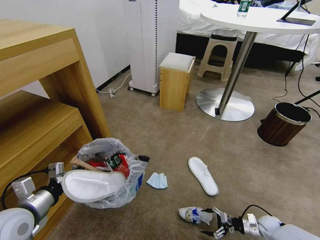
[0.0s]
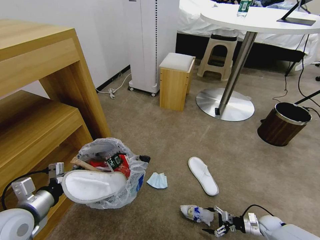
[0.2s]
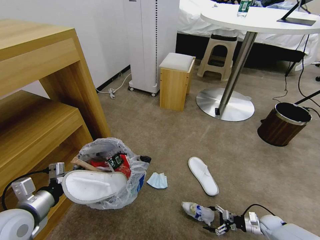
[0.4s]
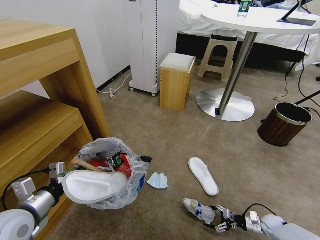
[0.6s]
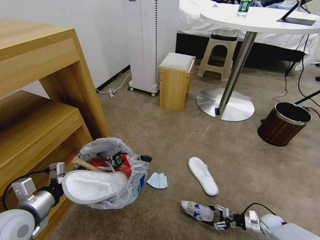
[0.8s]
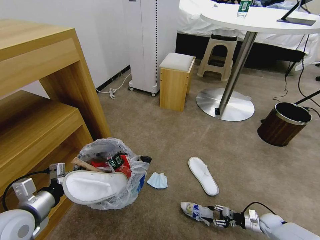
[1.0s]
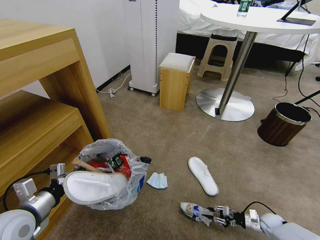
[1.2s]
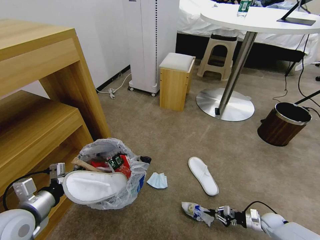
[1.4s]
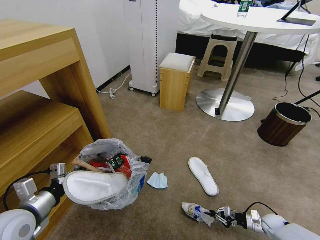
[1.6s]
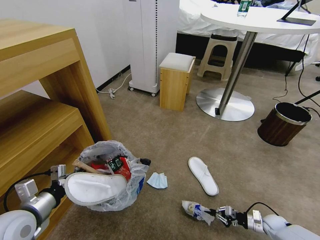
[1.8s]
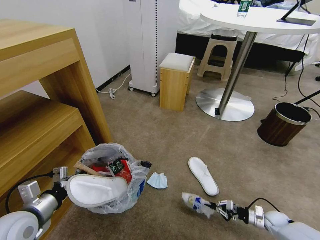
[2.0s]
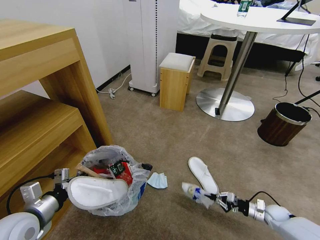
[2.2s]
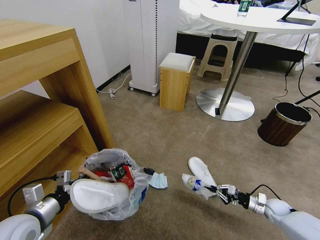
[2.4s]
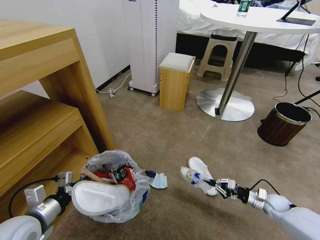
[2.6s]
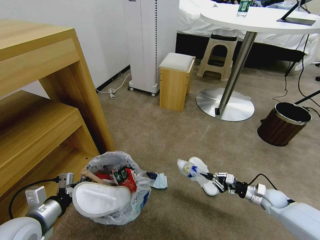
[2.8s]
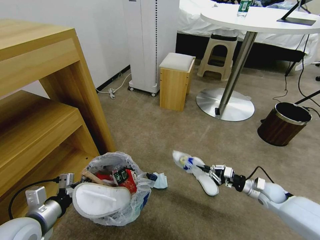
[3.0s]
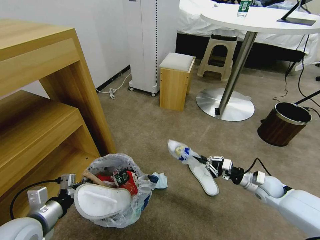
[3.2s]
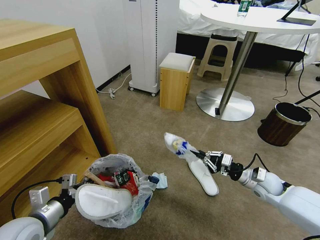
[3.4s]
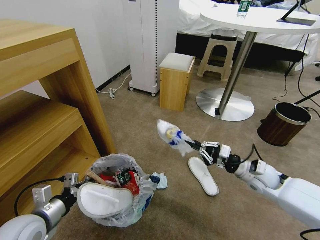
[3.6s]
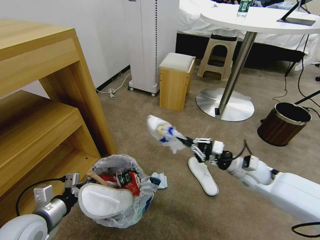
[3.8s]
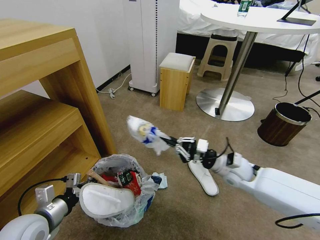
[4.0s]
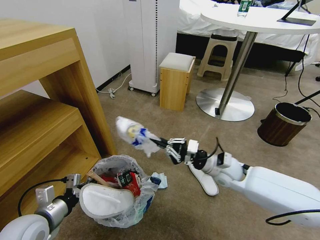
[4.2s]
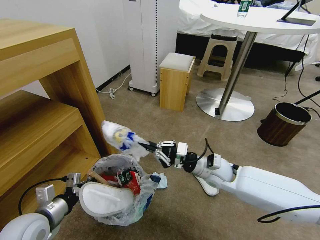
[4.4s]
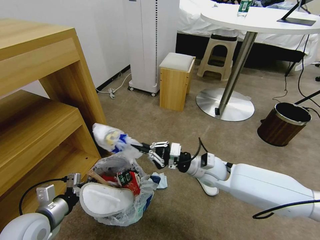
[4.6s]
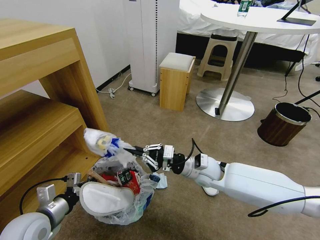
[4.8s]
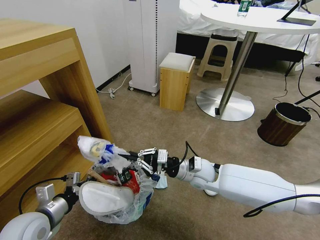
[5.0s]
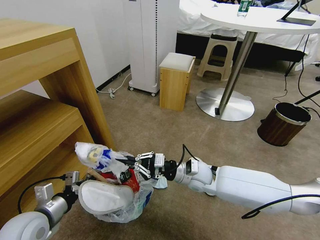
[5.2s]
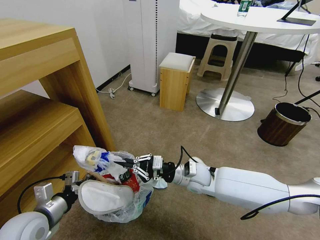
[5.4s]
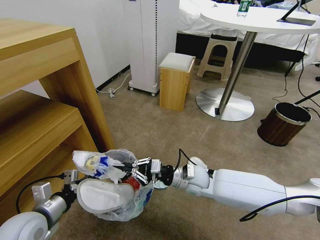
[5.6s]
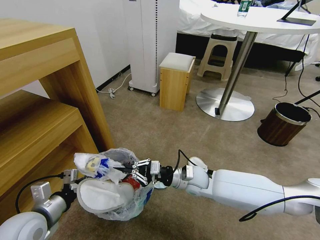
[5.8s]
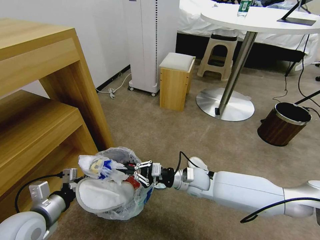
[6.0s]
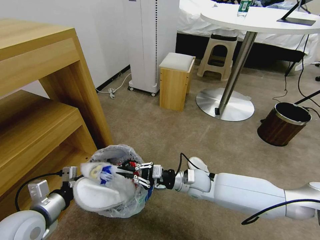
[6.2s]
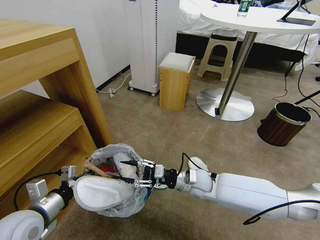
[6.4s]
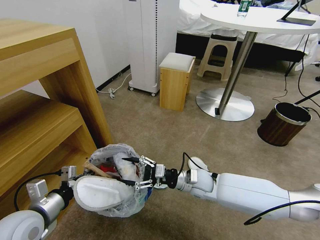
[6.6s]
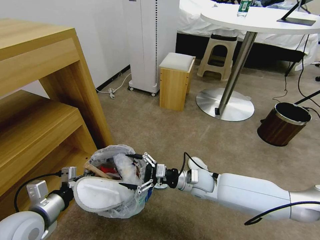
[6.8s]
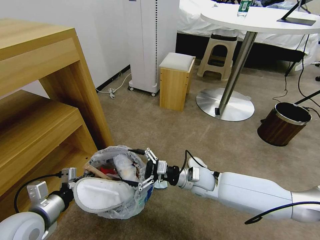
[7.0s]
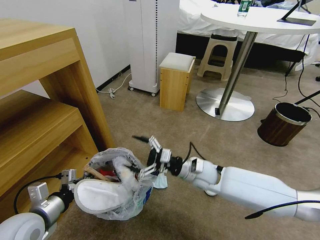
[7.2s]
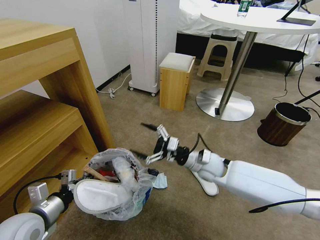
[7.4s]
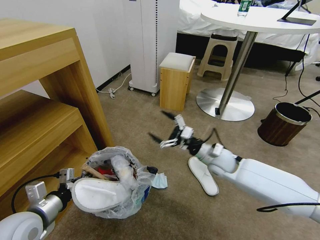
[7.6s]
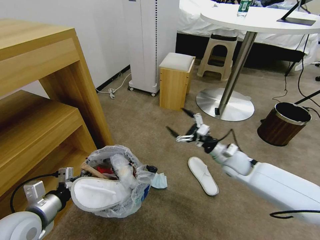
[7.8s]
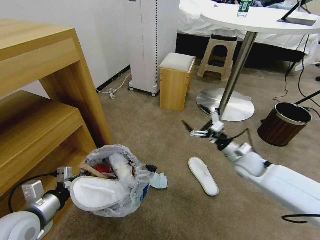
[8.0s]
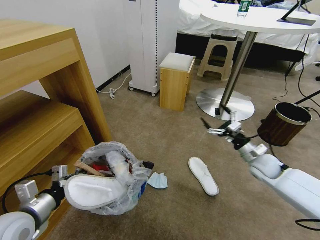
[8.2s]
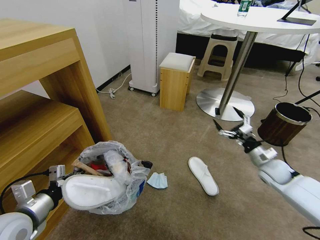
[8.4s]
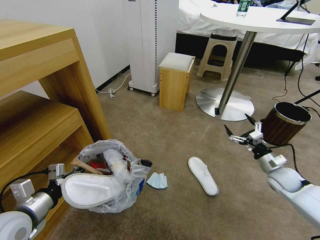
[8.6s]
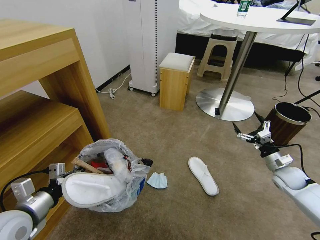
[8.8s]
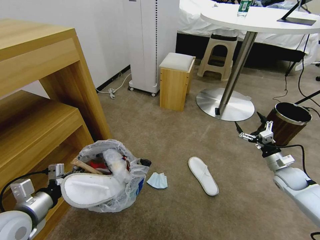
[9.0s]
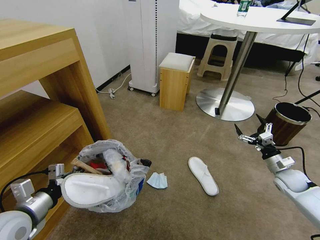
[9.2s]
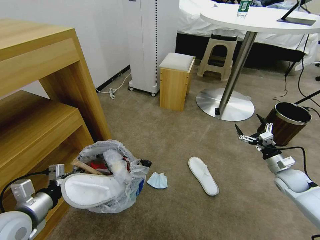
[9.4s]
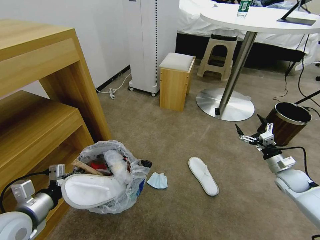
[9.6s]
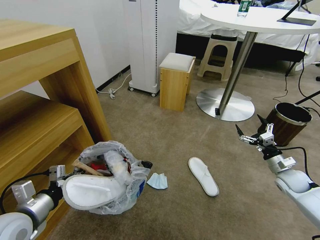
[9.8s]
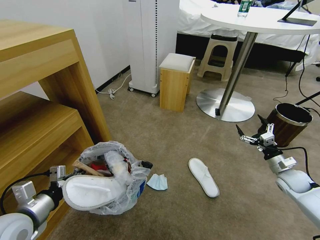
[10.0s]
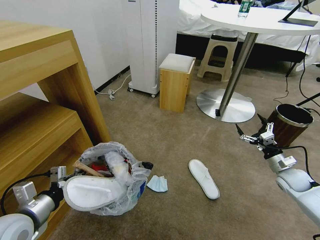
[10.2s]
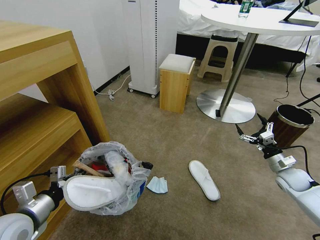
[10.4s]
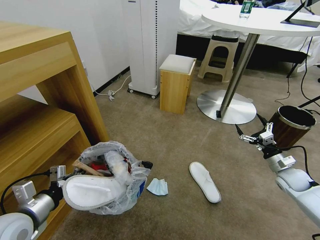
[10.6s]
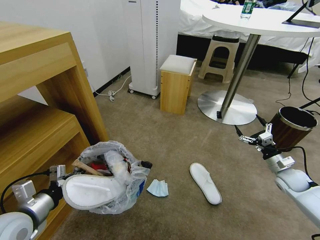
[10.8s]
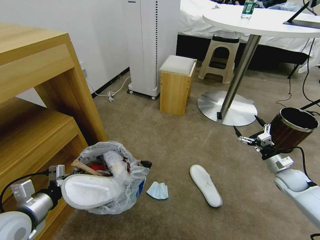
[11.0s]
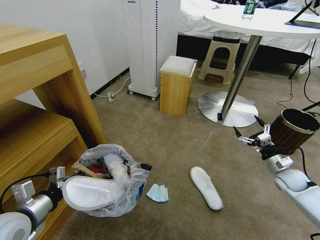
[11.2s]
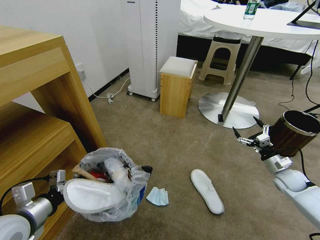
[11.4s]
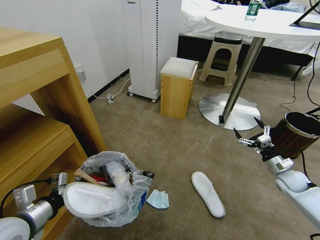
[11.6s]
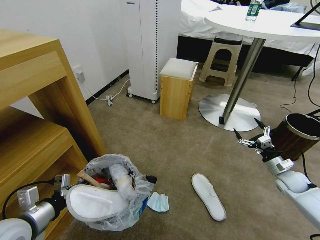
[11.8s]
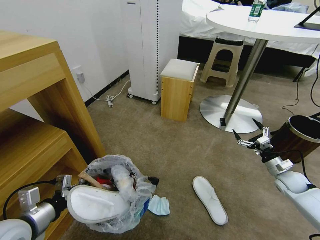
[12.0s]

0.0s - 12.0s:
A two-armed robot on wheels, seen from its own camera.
Task of the whole recording: Pick up the trash bin and place the garbage on the floor into it.
0.0s - 1.6s: The right gripper closes.
1.6s - 3.0s: The right gripper heads upward, forward and to the left, covering roughly 20 cm.
3.0s - 4.4s: The right gripper shifts roughly 25 cm to the left and upward.
4.4s - 6.0s: The right gripper shifts approximately 10 cm to the left and downward.
6.0s - 7.6s: The right gripper goes about 10 cm to the right and upward, and opens up.
7.6s - 9.0s: The right gripper shifts roughly 30 cm to the right.
9.0s - 10.4s: Both grippers stay about where they are.

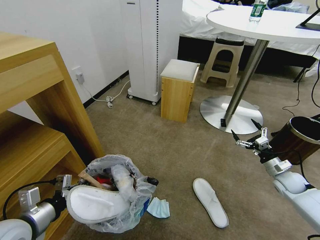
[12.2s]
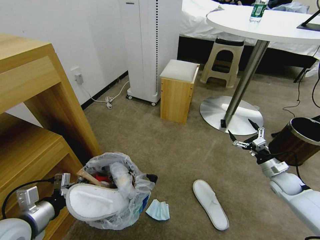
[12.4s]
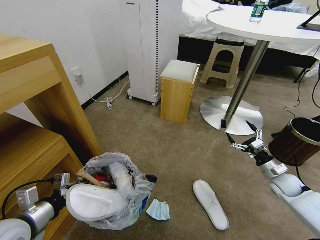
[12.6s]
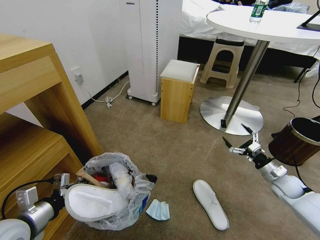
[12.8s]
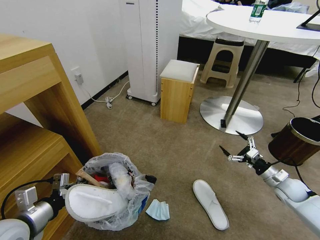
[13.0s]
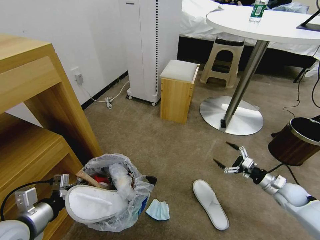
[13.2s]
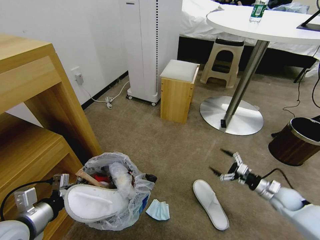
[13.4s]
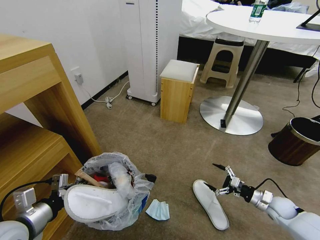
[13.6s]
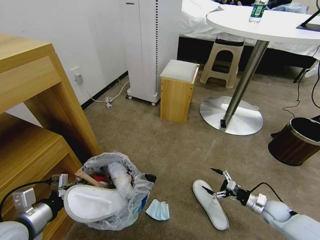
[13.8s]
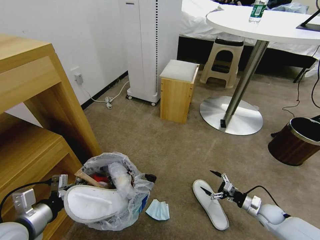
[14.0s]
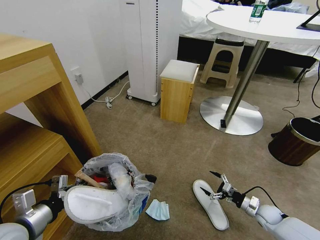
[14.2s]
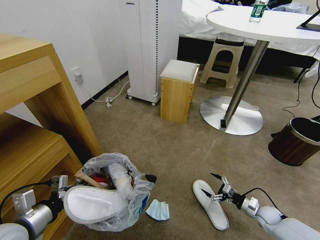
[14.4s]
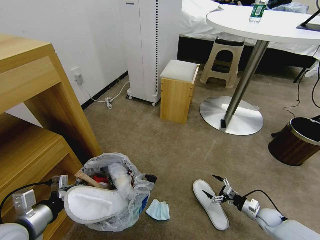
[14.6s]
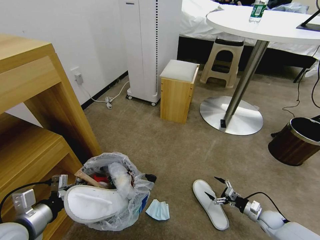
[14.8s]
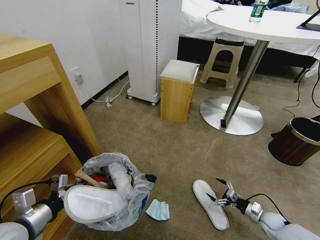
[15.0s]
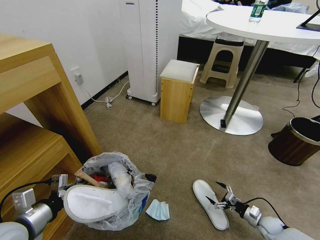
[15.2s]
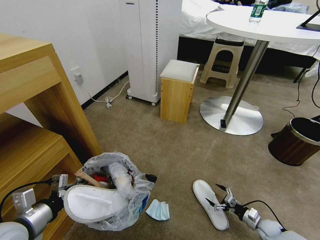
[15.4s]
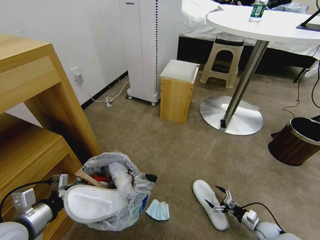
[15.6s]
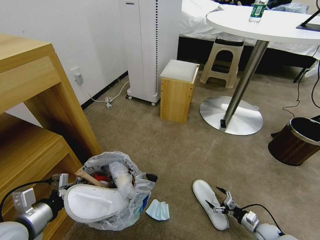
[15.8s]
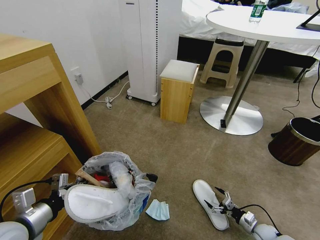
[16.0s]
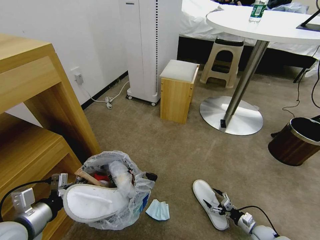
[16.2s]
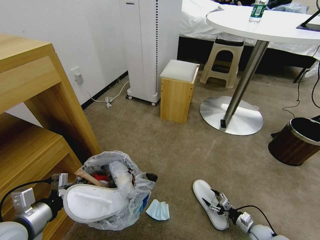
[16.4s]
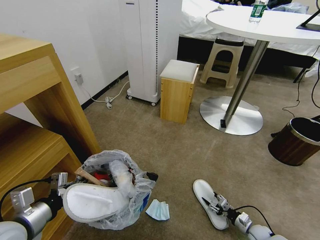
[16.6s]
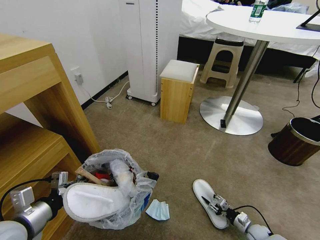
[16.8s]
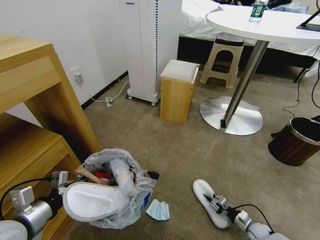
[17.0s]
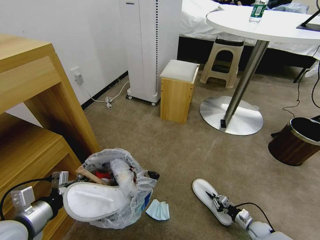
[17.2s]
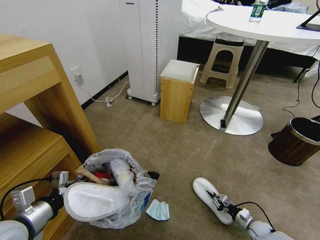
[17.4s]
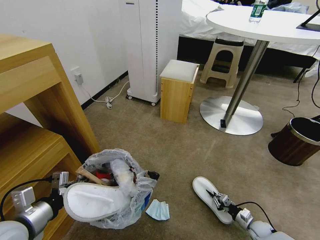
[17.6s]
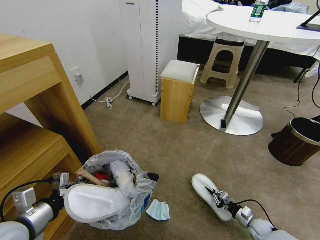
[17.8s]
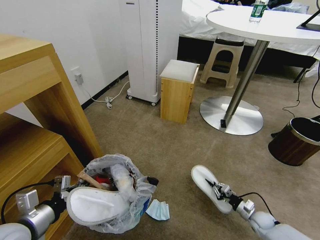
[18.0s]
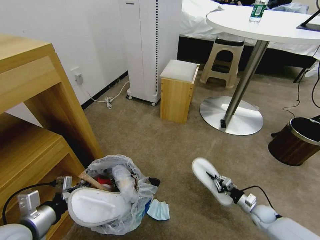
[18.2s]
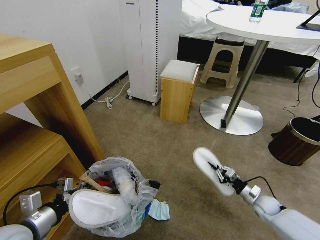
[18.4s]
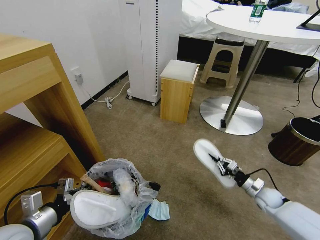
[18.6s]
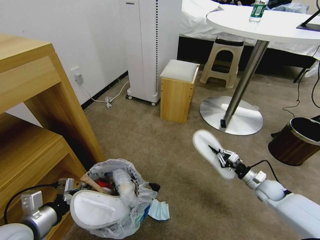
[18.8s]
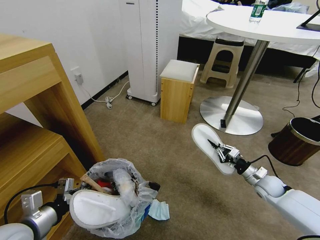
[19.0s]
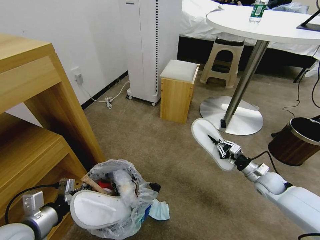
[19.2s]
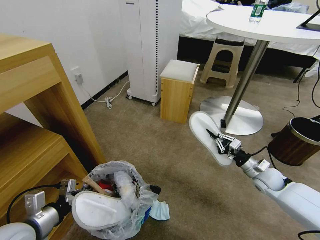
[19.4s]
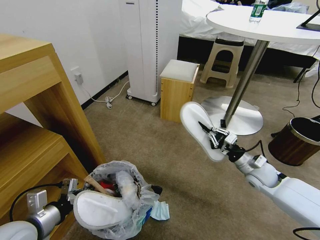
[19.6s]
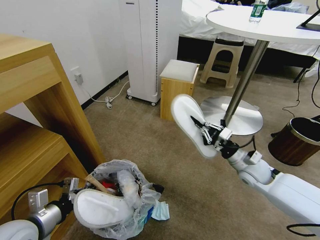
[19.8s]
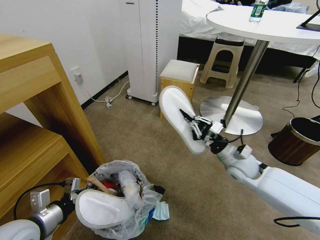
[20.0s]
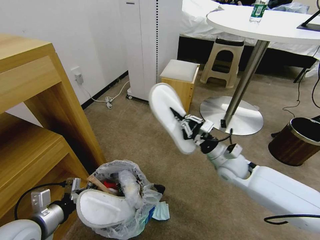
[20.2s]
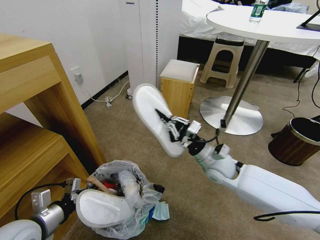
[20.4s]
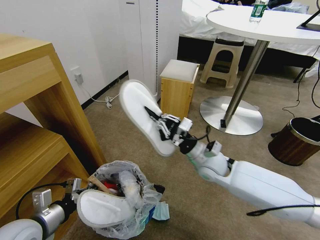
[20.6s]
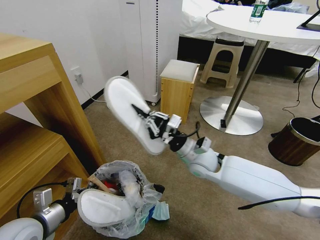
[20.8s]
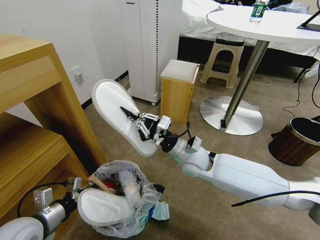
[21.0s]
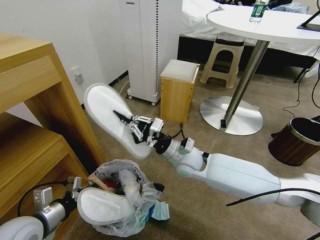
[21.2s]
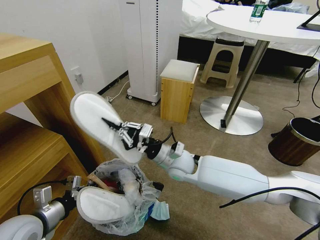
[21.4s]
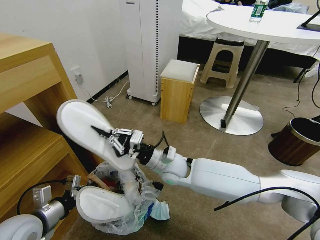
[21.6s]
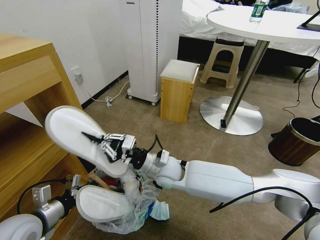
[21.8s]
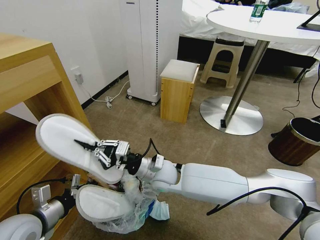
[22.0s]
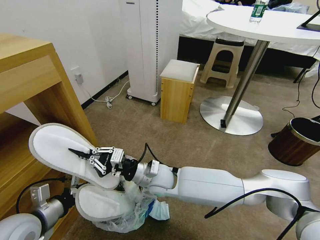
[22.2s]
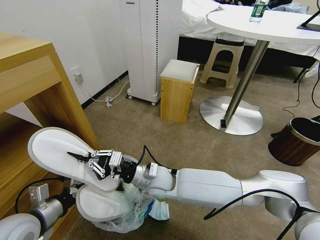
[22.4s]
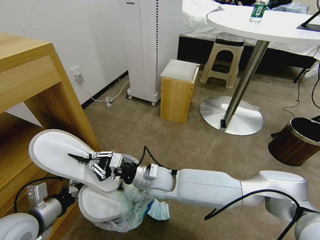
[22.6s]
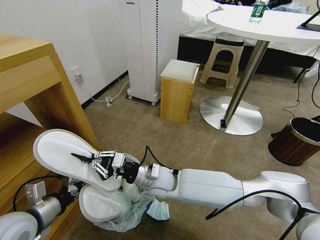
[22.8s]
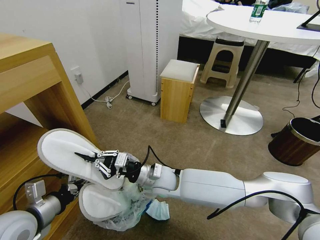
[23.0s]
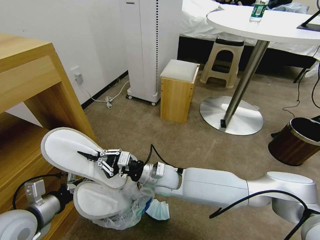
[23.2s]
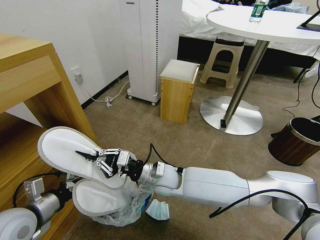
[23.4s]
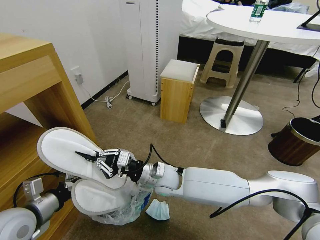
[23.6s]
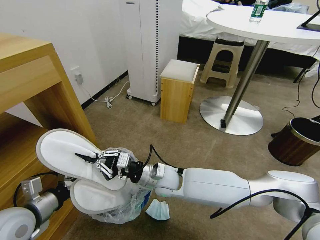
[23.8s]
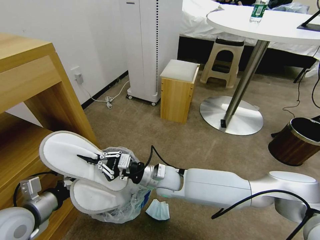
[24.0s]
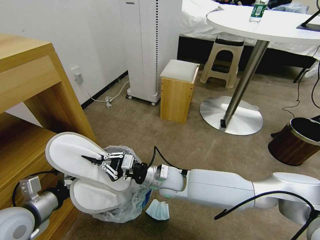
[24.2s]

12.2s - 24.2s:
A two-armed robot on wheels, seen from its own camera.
Task of the whole recording: Pick up the trash bin and place the garbage on the floor into it.
12.2s - 13.8s: The right gripper is displaced downward and backward by approximately 10 cm.
13.8s - 15.2s: The right gripper moves downward, some 10 cm.
15.2s - 16.6s: The right gripper moves downward, roughly 5 cm, and closes its fingers.
16.6s - 18.2s: The right gripper is displaced upward and forward by about 10 cm, and closes up.
18.2s - 19.8s: The right gripper moves upward and to the left, roughly 25 cm.
19.8s - 21.2s: The right gripper travels to the left by roughly 25 cm.
21.2s - 22.6s: The right gripper heads to the left and downward, covering about 10 cm.
22.6s - 24.2s: The grippers make only small movements.
